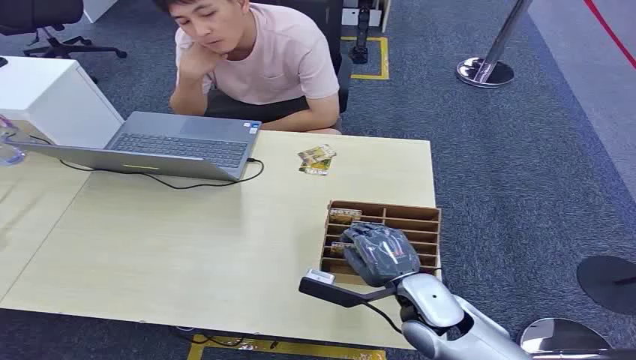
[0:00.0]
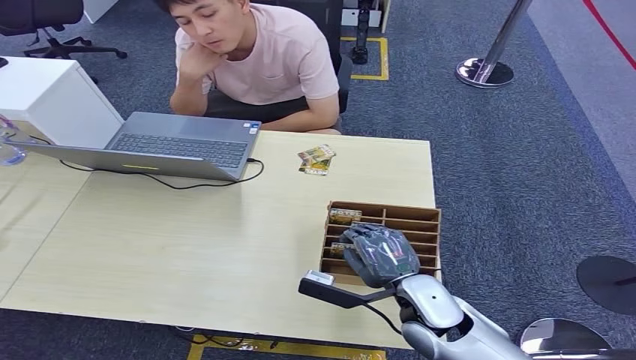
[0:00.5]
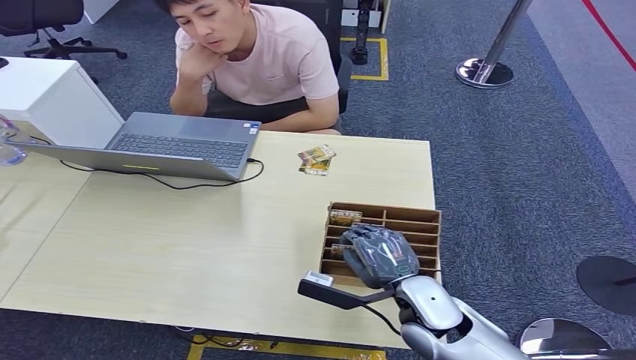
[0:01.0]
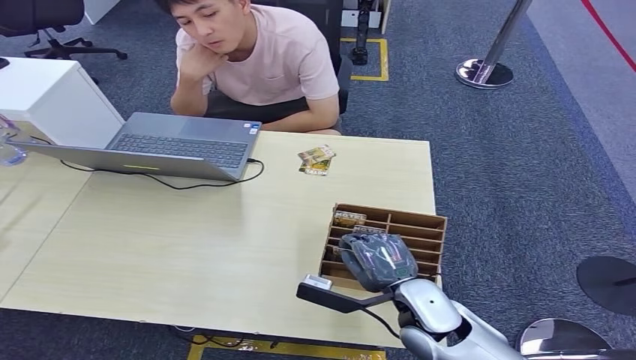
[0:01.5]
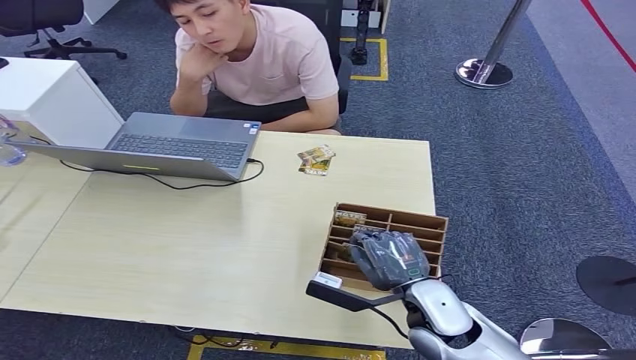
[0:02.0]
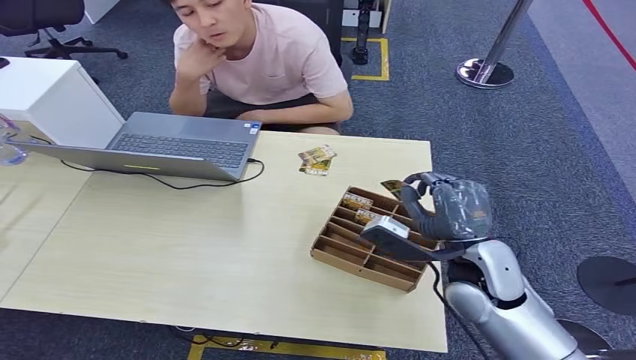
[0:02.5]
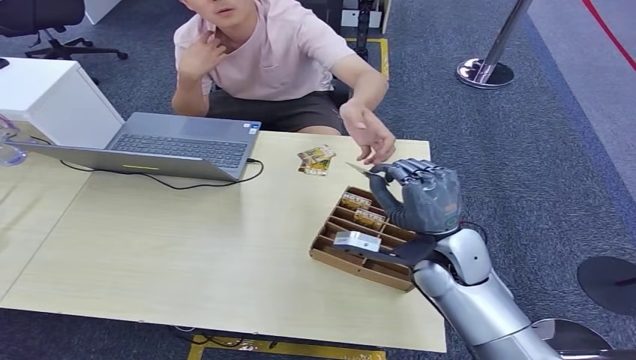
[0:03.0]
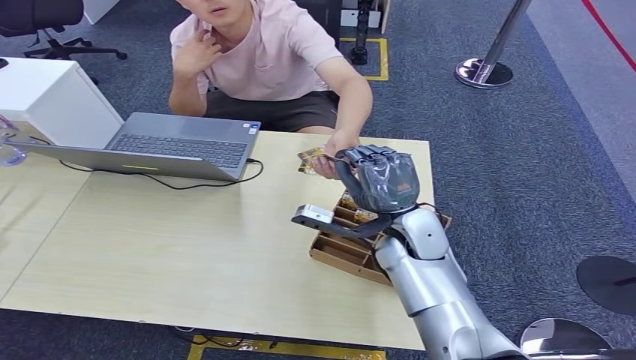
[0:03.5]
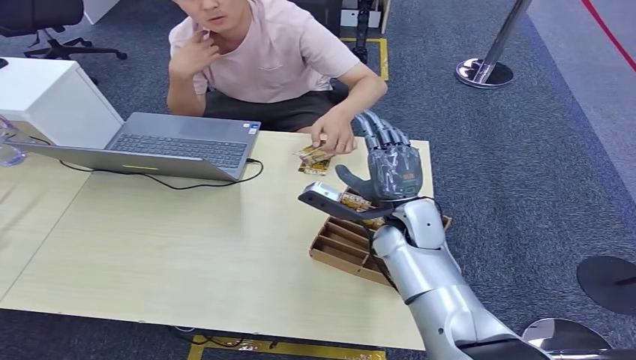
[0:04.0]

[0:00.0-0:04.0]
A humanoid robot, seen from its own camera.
Step, 0:00.0 to 0:02.0: Pick up the key card from the card box.
Step, 0:02.5 to 0:04.0: Hand the key card to the target.
0:02.0 to 0:04.0: The right hand is displaced forward and upward by approximately 15 cm.
